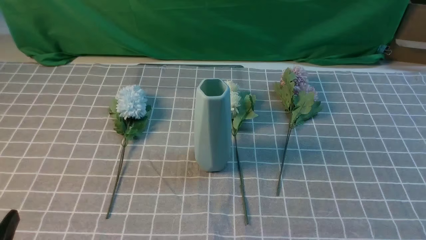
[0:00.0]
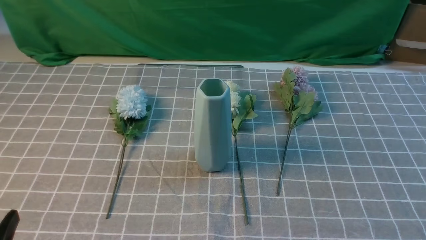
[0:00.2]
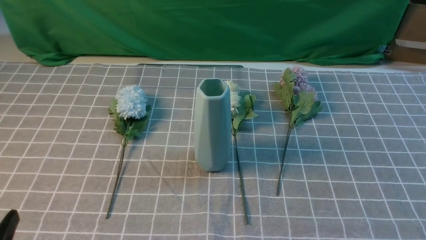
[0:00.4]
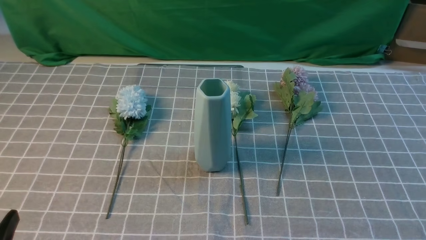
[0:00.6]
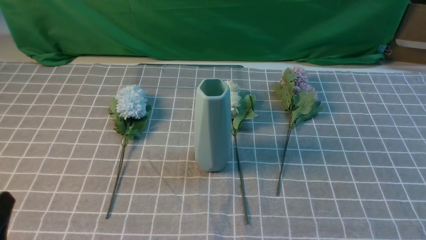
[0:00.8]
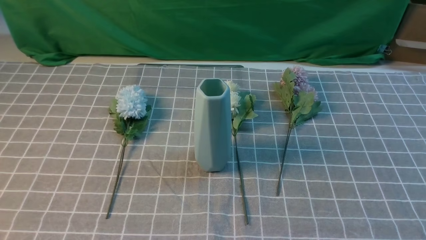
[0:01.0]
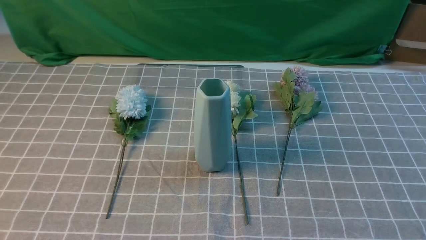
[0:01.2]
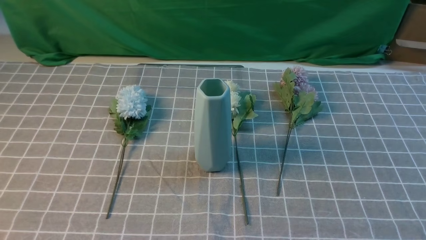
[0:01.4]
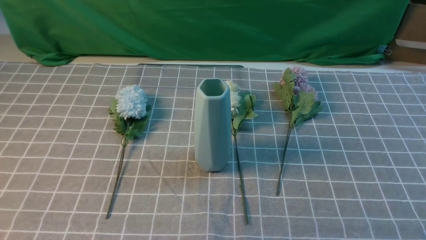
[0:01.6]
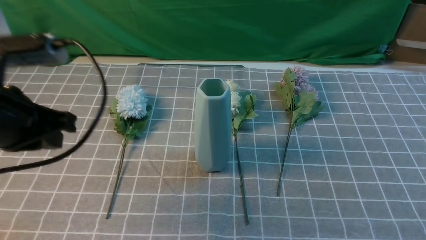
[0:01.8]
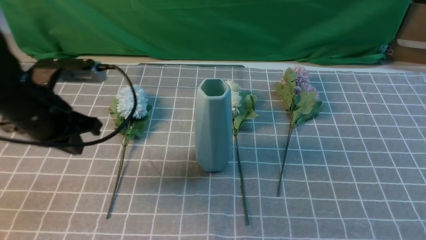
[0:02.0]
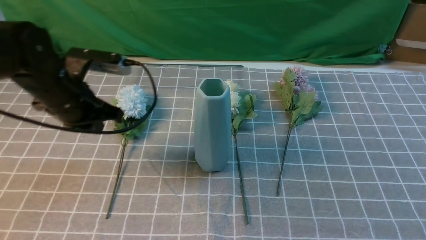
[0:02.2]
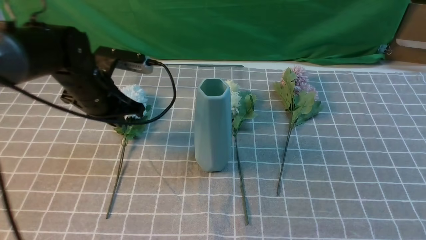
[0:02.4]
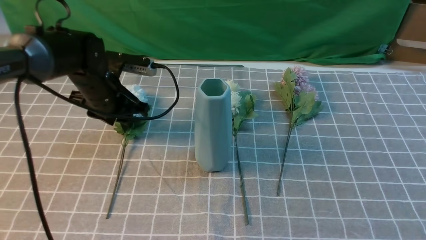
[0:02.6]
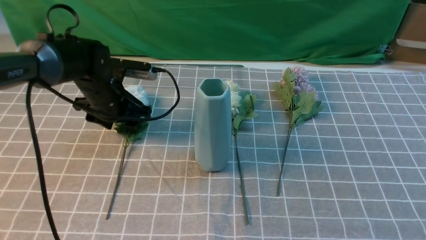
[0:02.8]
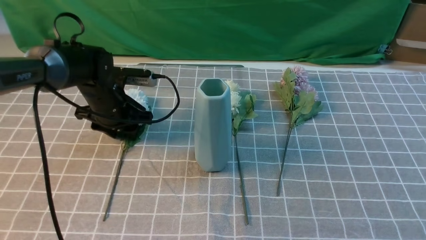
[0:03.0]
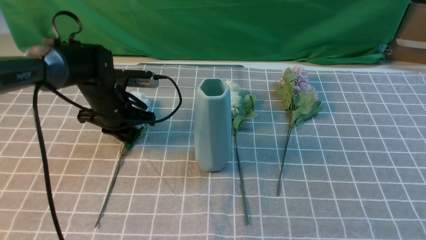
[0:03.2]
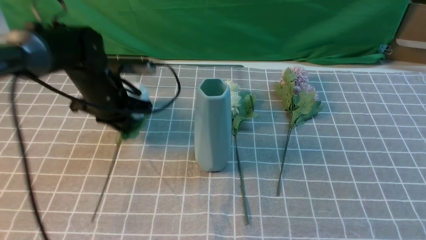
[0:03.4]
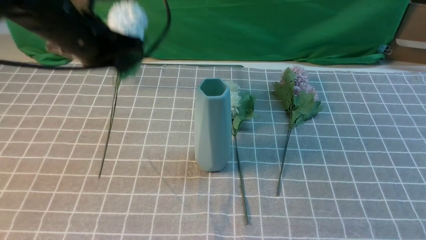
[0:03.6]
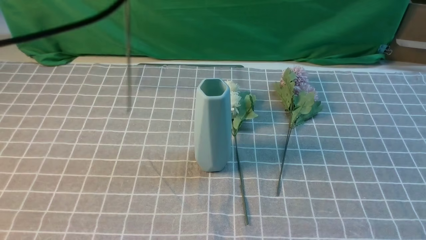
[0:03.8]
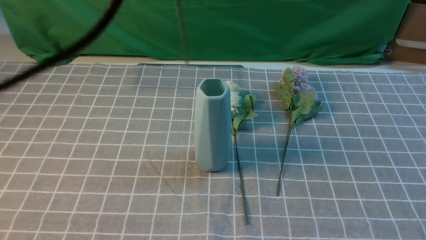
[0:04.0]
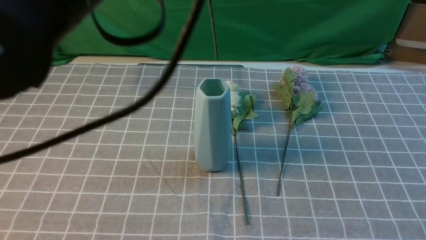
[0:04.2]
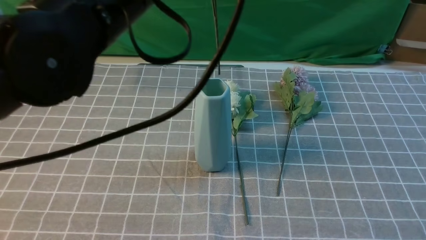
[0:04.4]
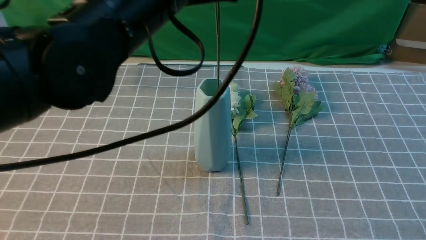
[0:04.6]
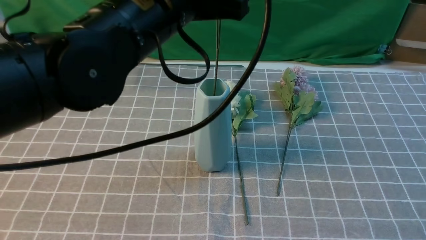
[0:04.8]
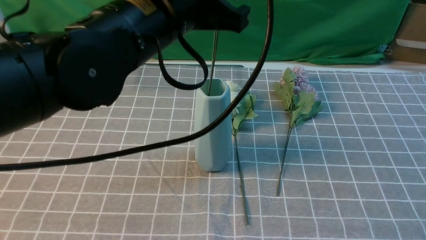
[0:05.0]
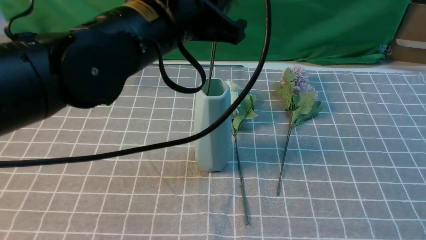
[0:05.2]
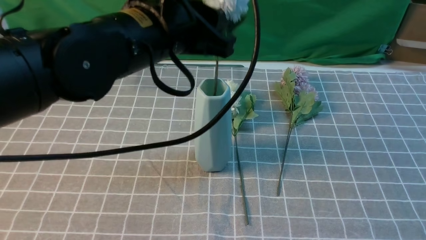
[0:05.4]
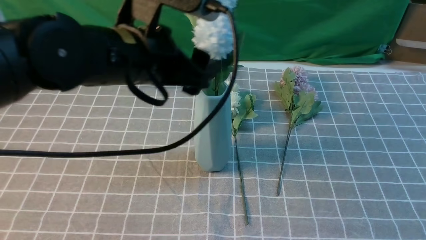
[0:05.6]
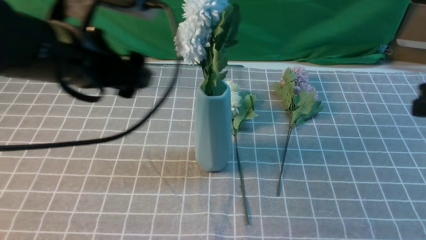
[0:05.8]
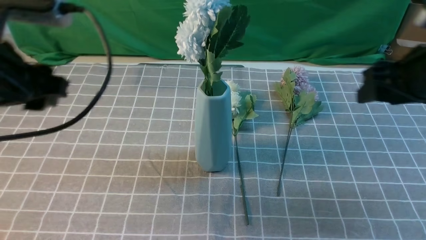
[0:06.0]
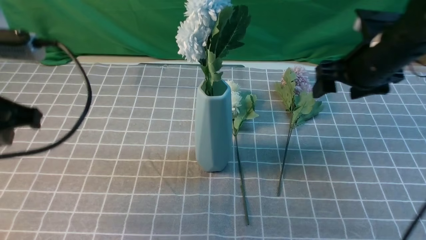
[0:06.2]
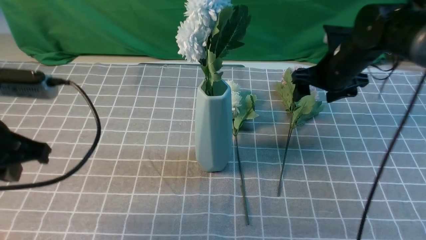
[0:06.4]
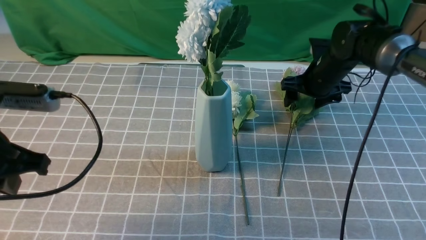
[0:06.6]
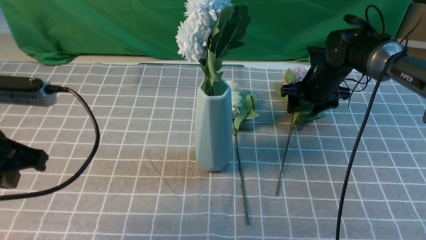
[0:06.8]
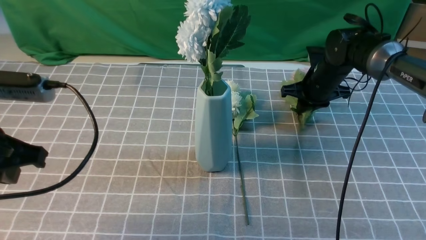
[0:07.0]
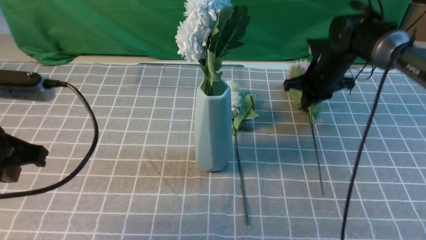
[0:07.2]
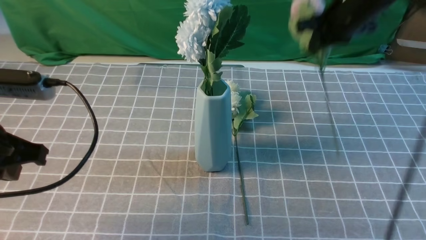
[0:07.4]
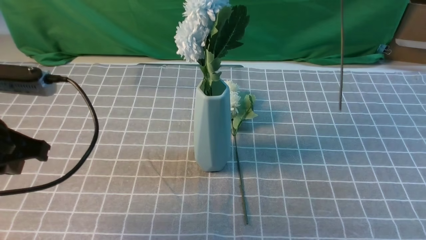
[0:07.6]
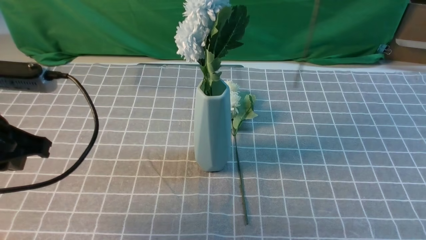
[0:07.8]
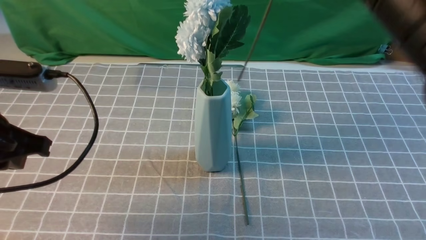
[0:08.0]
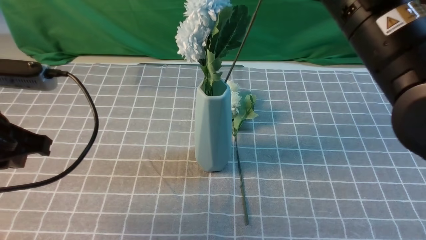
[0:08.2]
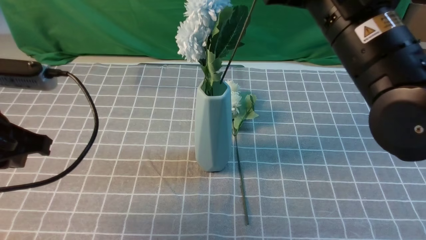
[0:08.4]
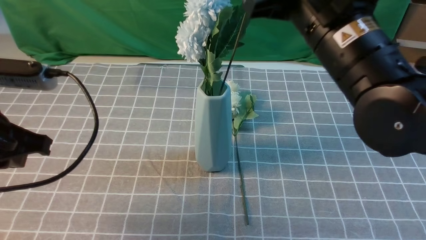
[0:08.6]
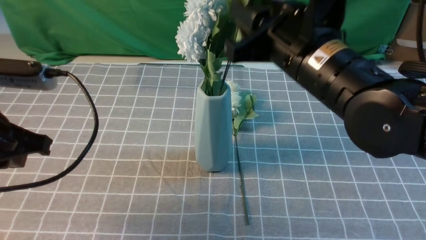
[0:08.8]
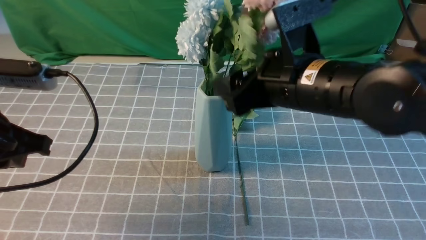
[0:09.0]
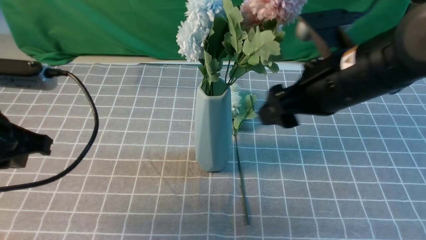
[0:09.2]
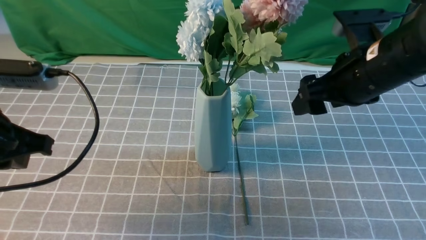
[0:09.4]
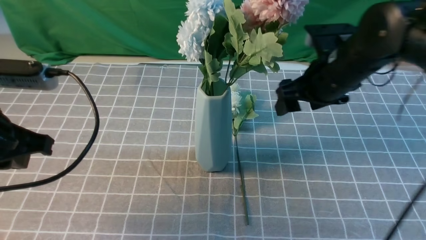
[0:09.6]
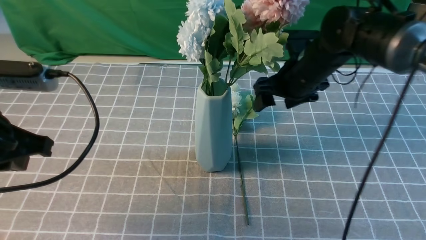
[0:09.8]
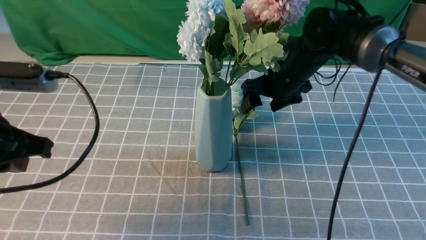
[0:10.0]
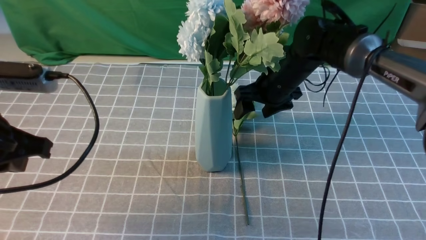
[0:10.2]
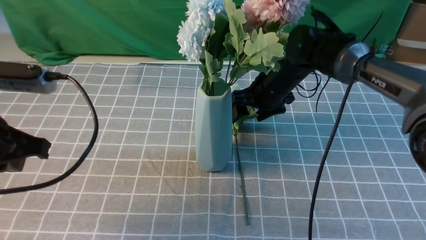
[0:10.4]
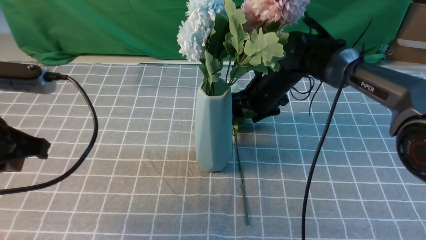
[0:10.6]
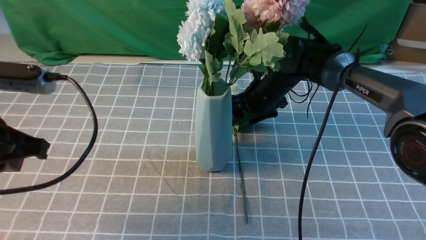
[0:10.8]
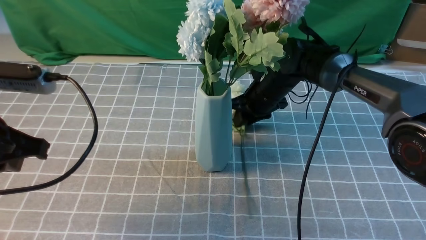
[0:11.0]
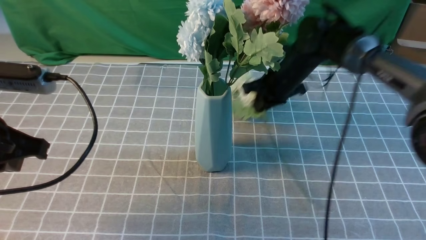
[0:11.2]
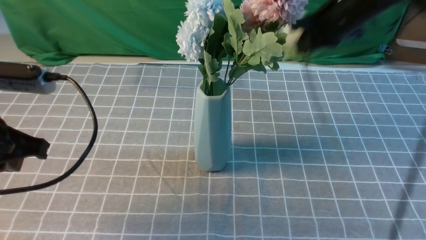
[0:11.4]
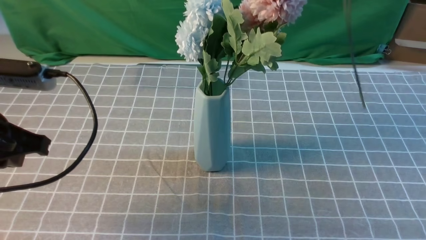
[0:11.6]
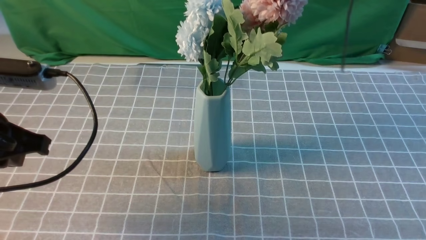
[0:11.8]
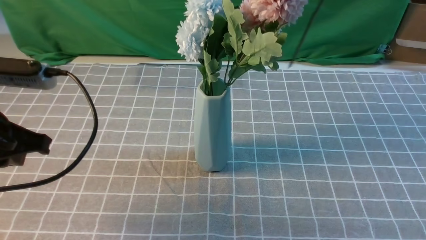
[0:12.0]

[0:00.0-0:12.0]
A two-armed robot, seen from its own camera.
Task of the whole recording: insert the flowers into the vase on the table with the grey tablecloth.
Step, 0:00.0 to 0:03.2: use the left arm to grab a bunch of fresh flowers.
Step, 0:03.4 to 0:05.4: use the left arm to insert the flowers into the vase.
Step, 0:05.8 to 0:07.0: use the right arm to grab a bunch of fresh flowers.
Step, 0:07.4 to 0:08.8: use the right arm to insert the flowers into the vase.
Step, 0:09.2 to 0:11.0: use the right arm to grab a bunch of fresh flowers.
0:01.6 to 0:03.0: The left gripper shifts approximately 30 cm forward and downward, and opens its fingers. The right gripper shifts roughly 15 cm upward and forward.
0:03.0 to 0:04.4: The left gripper moves upward, backward and to the right, about 30 cm, and closes its fingers.
0:04.4 to 0:06.0: The left gripper moves to the left and downward, approximately 15 cm, and opens up; the right gripper moves forward, about 20 cm, and opens its fingers.
0:06.0 to 0:07.6: The right gripper is displaced upward and to the left by roughly 15 cm, and closes. The left gripper changes place by approximately 5 cm, and closes.
0:07.6 to 0:09.0: The right gripper moves downward, backward and to the left, about 15 cm, and opens its fingers.
0:09.0 to 0:10.4: The right gripper travels forward and downward by approximately 25 cm.
0:10.4 to 0:12.0: The right gripper is displaced upward and backward by some 35 cm, and closes its fingers.

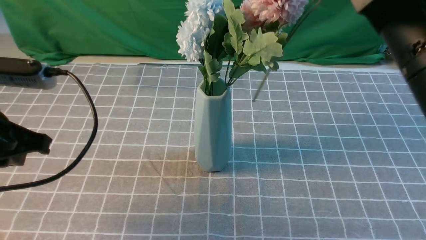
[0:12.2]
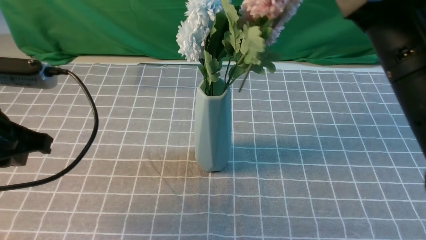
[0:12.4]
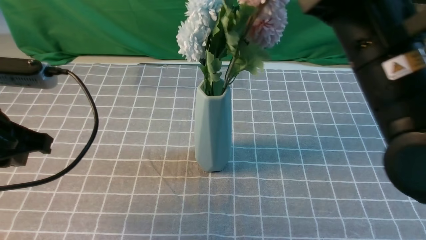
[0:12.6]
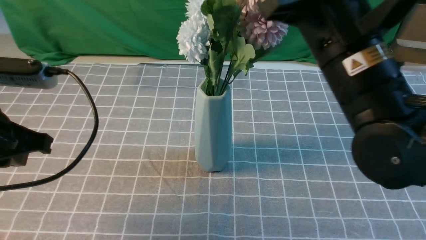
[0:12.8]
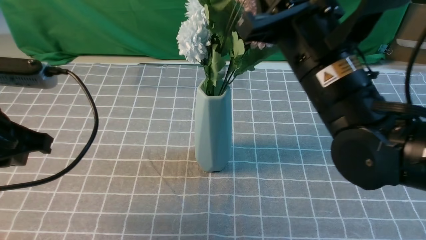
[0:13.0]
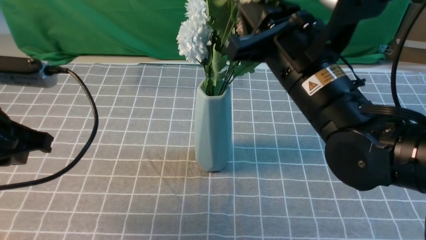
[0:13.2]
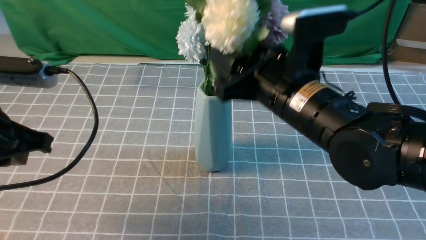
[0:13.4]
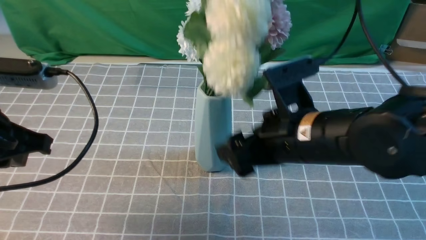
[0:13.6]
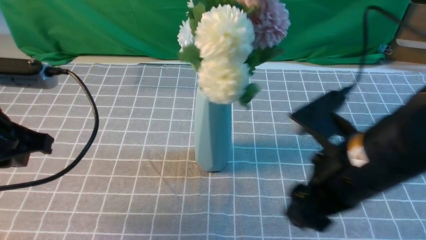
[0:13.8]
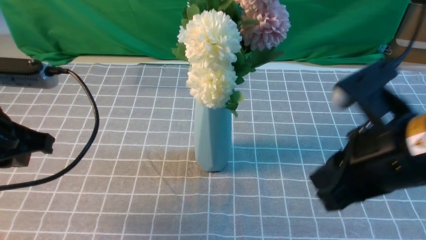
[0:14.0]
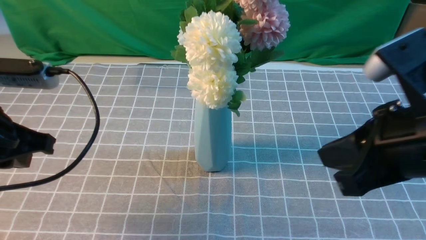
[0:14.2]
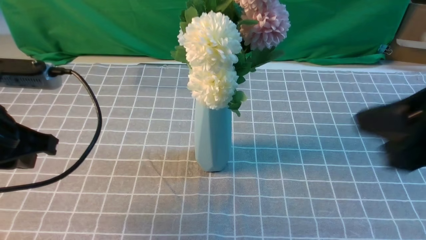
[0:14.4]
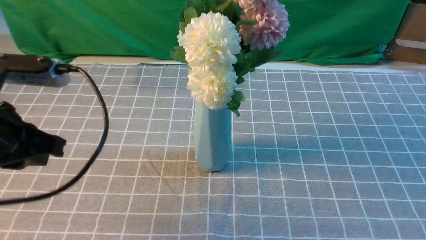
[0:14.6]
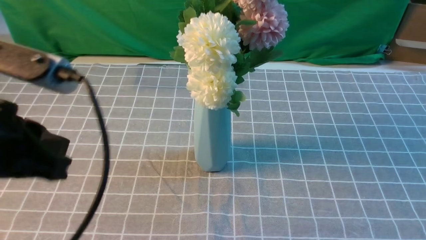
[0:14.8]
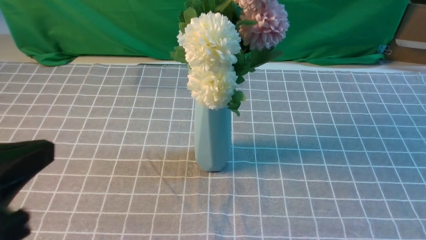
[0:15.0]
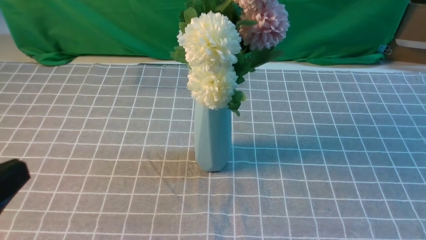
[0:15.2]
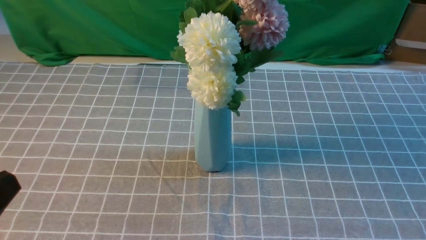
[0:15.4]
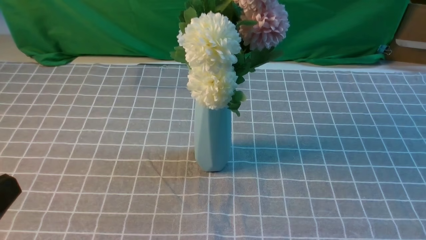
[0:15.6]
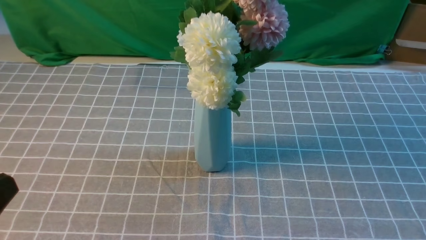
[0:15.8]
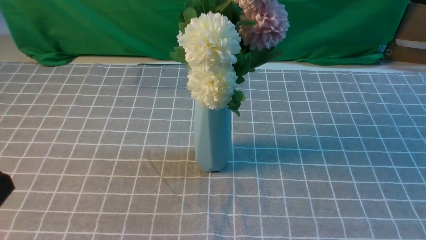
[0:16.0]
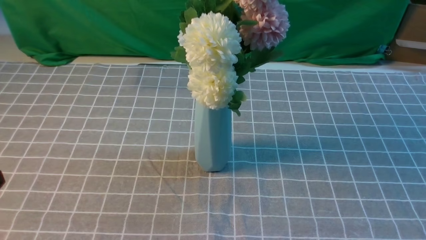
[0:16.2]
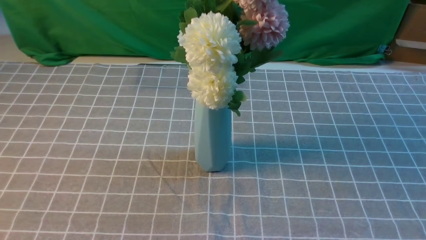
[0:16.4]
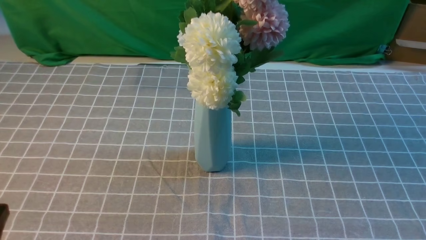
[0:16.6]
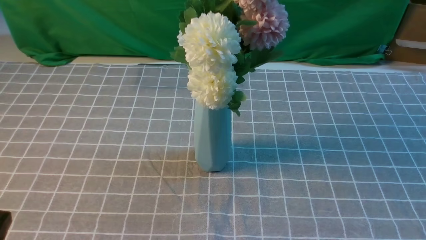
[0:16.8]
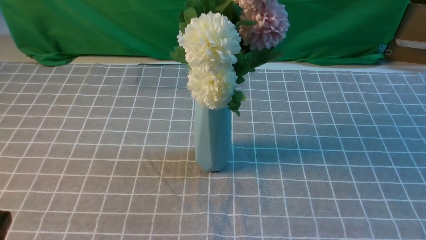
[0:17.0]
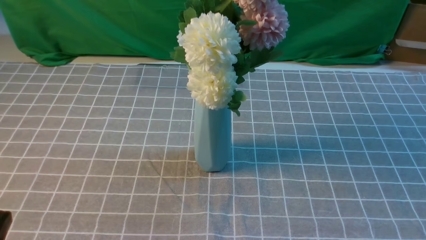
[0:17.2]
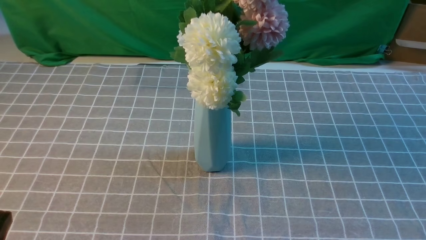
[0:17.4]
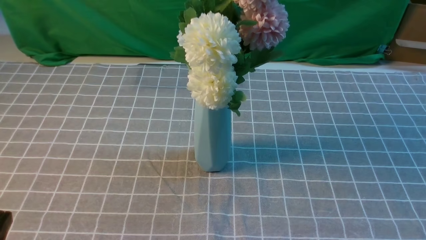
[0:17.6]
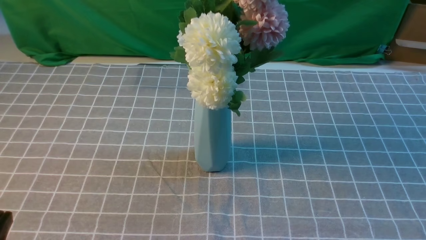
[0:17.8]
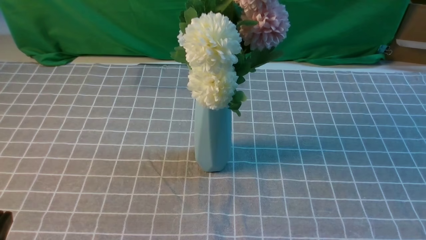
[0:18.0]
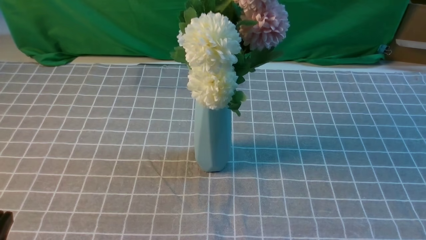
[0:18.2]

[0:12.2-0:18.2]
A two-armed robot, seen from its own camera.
Task of the whole recording: insert the flowers into the vase on the table with the grey tablecloth.
Step, 0:12.2 to 0:13.4: use the right arm to insert the flowers into the vase.
0:12.2 to 0:13.8: The right gripper goes roughly 10 cm downward and to the left, and opens.
0:13.8 to 0:15.2: The right gripper is displaced backward and to the right by roughly 25 cm, and closes its fingers; the left gripper goes about 15 cm backward.
0:15.2 to 0:16.6: The left gripper moves downward, approximately 10 cm.
